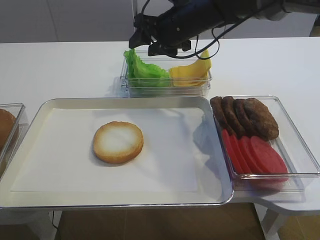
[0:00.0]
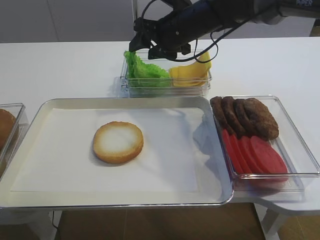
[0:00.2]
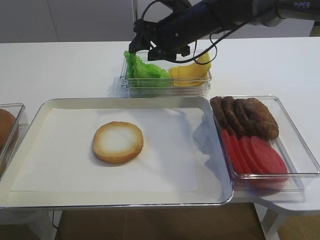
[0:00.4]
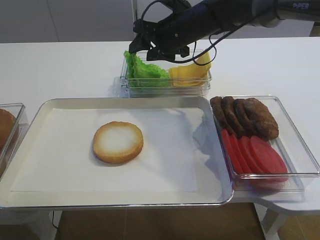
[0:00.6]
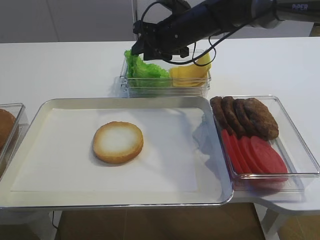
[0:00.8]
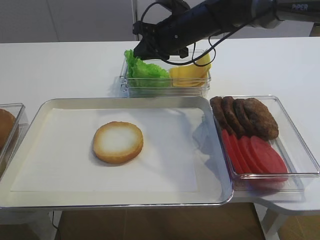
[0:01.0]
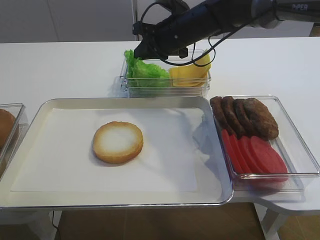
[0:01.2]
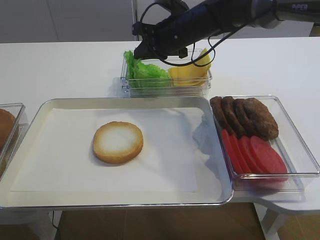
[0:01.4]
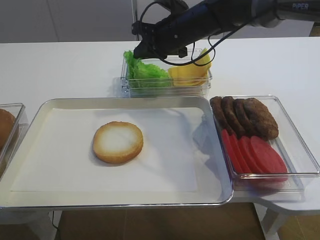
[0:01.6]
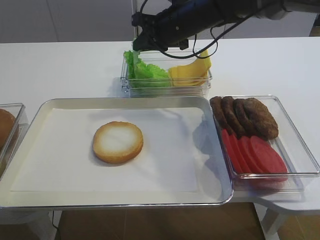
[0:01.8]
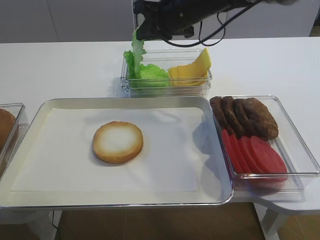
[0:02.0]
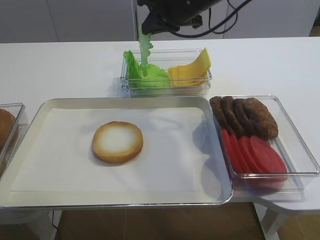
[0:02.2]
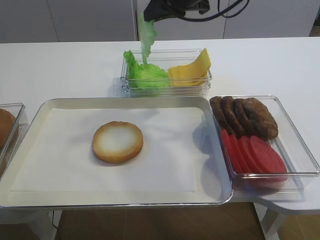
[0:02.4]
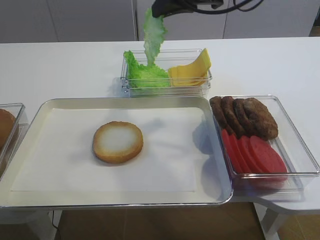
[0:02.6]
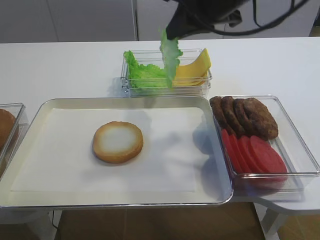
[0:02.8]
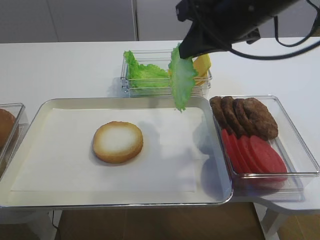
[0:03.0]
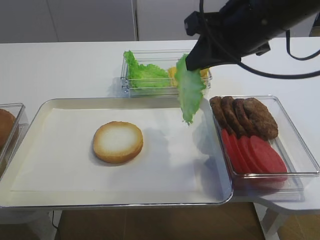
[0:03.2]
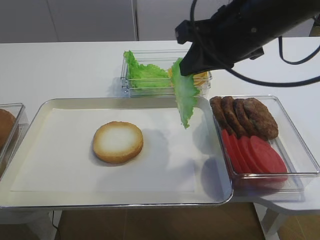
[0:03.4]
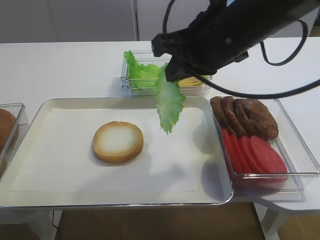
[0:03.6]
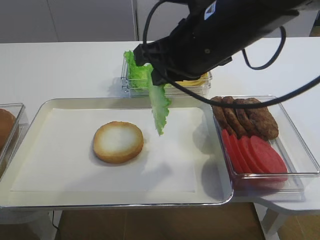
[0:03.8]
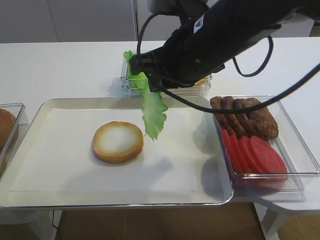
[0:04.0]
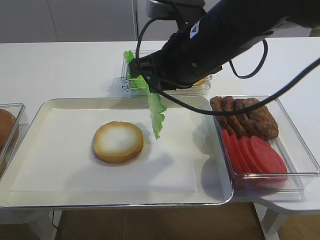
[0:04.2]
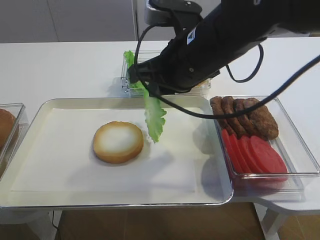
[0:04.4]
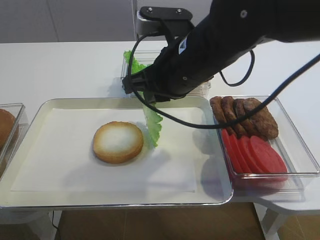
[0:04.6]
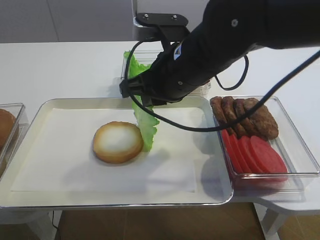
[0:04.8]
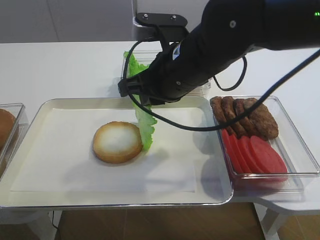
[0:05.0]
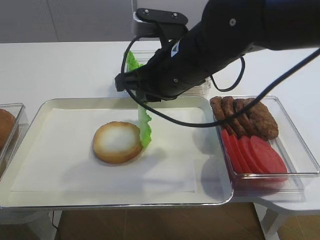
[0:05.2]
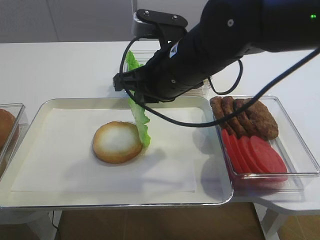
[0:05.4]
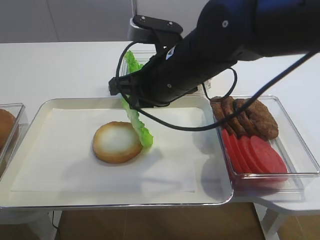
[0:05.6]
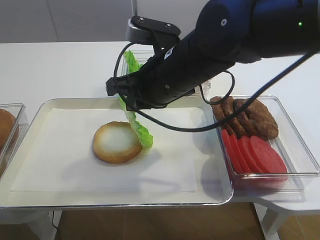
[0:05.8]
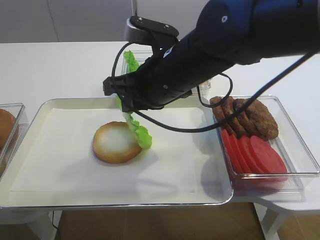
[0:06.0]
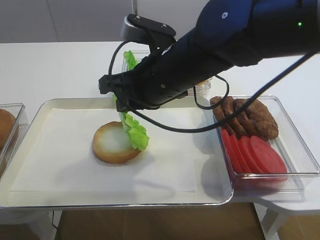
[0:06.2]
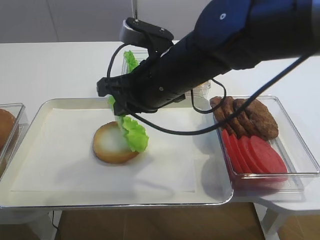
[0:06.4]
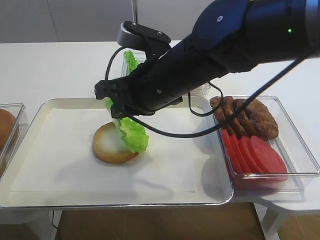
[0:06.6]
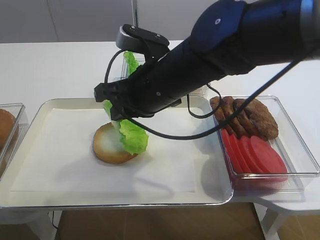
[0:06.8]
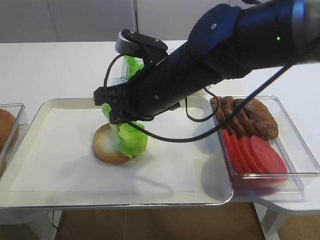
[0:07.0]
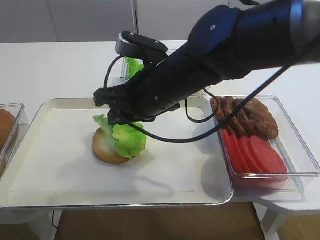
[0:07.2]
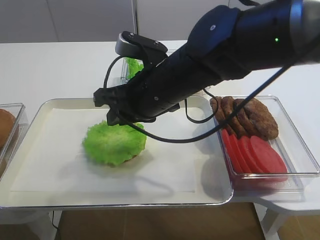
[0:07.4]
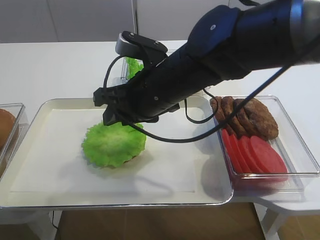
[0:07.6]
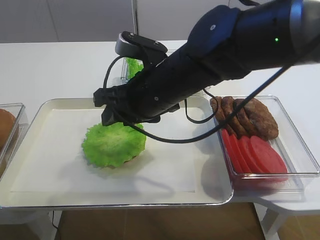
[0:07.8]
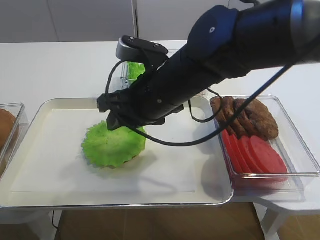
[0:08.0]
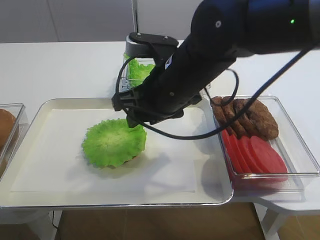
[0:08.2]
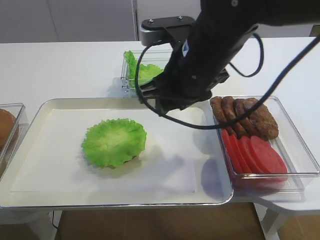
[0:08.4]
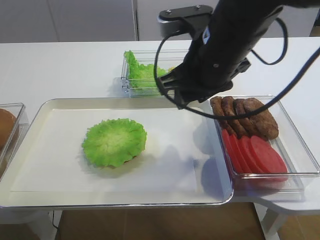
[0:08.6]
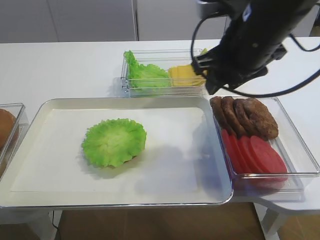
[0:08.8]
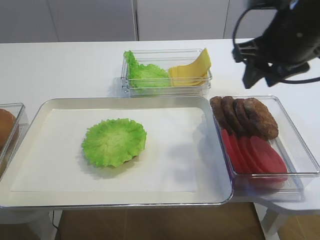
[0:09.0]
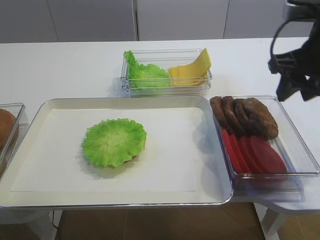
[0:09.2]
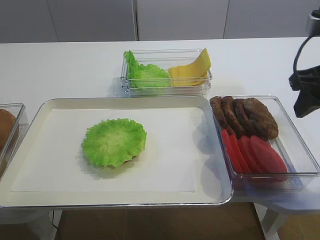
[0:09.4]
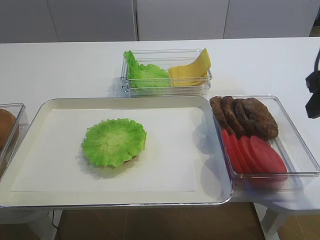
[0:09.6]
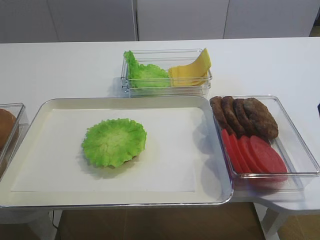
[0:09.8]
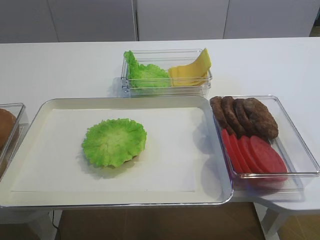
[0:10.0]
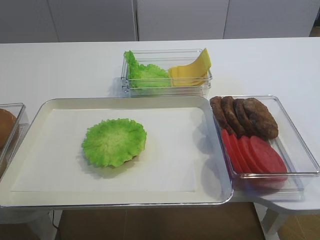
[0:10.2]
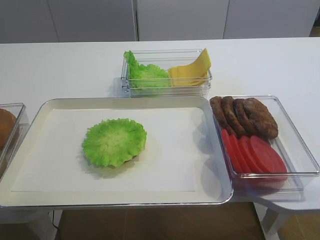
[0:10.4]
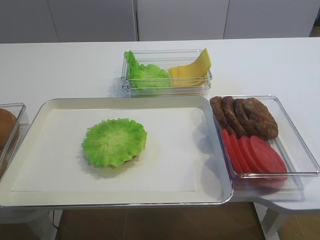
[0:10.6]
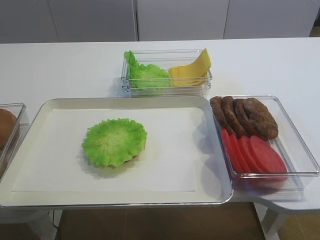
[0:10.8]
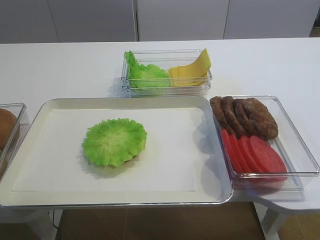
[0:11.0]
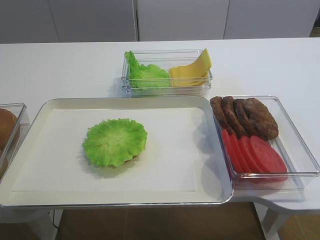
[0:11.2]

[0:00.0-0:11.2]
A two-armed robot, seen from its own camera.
Step, 0:00.0 to 0:02.2: Pick up the lettuce leaf with the right gripper.
Step, 0:02.4 to 0:08.2: Place the lettuce leaf on the bread slice with the right gripper.
0:00.0 to 0:01.6: The right gripper closes.
0:01.6 to 0:03.2: The right gripper moves backward, upward and to the right, about 20 cm.
0:03.2 to 0:04.8: The right gripper is displaced to the left and downward by approximately 10 cm.
0:04.8 to 0:06.4: The grippers stay close to where they were, moving slightly.
0:06.4 to 0:08.0: The right gripper opens.
0:08.0 to 0:09.6: The right gripper is displaced to the right by about 25 cm.
0:09.6 to 0:11.2: The right gripper shifts about 25 cm backward.

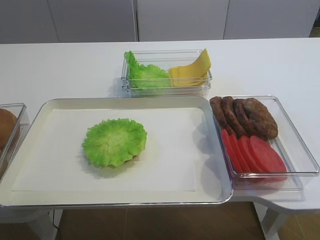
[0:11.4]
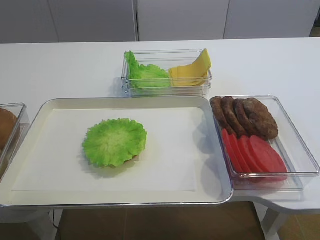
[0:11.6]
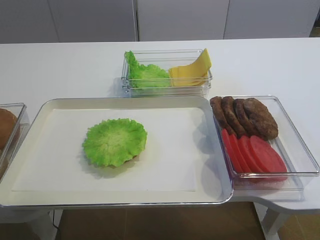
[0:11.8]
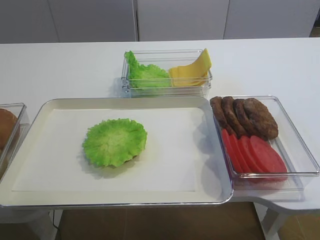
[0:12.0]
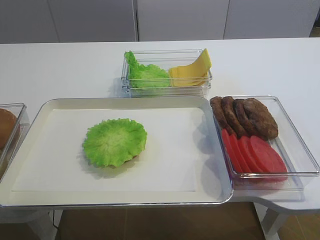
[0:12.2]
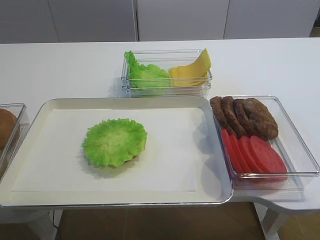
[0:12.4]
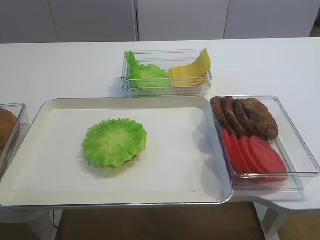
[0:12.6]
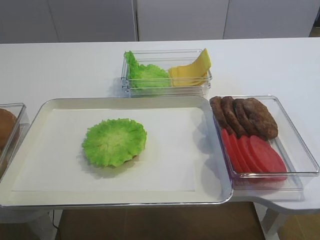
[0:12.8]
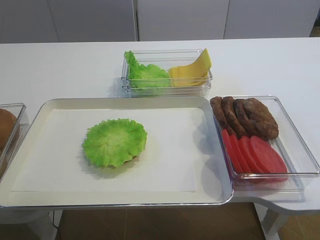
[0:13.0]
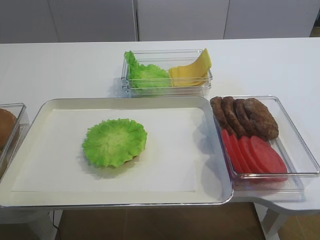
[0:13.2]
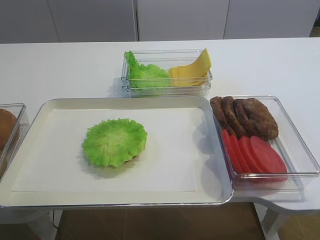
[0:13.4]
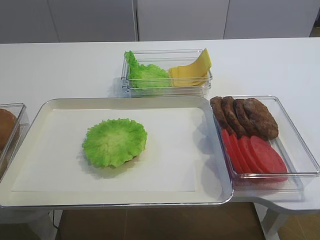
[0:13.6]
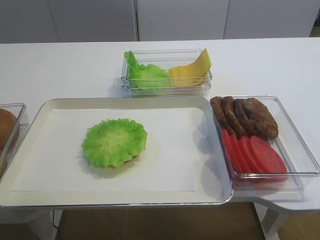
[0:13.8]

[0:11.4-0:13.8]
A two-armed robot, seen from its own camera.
0:12.6 to 0:13.8: The two grippers keep their place.

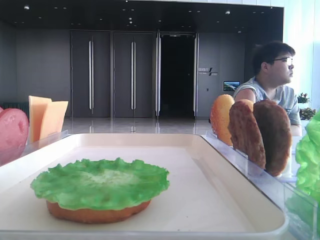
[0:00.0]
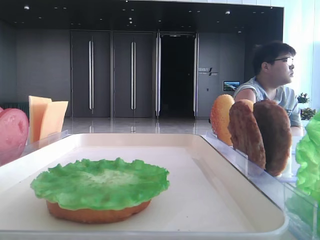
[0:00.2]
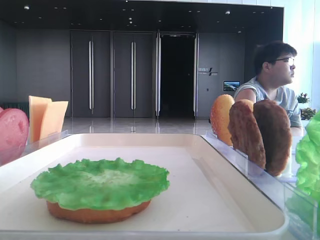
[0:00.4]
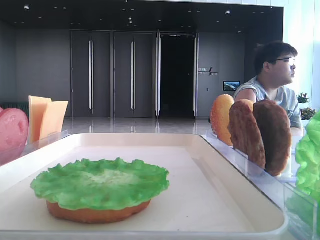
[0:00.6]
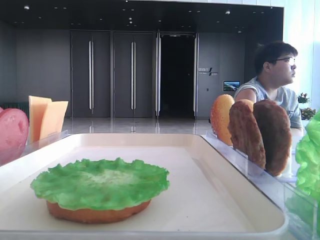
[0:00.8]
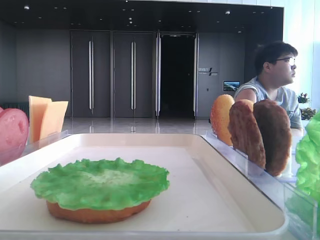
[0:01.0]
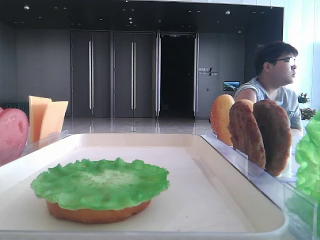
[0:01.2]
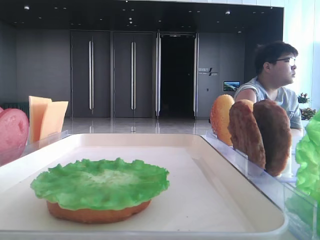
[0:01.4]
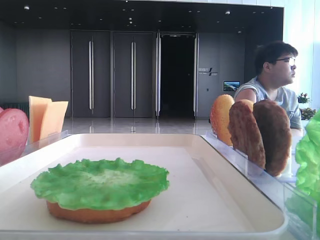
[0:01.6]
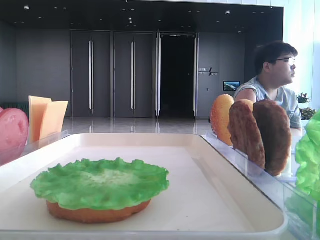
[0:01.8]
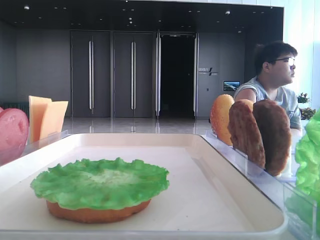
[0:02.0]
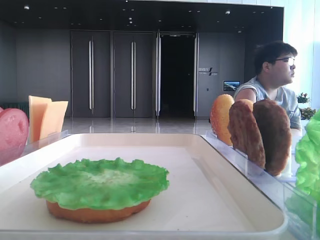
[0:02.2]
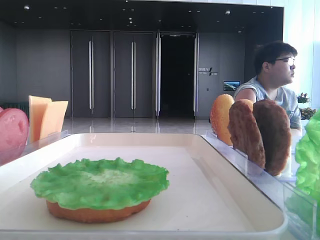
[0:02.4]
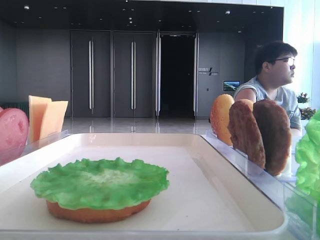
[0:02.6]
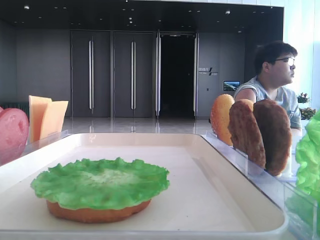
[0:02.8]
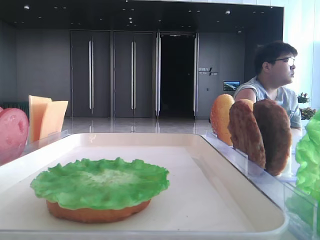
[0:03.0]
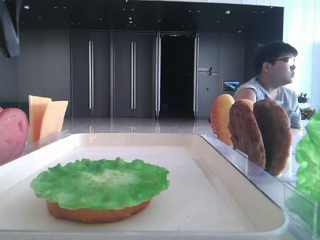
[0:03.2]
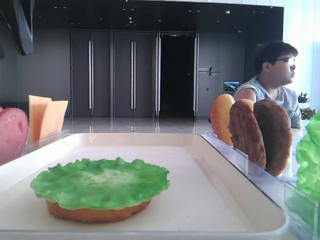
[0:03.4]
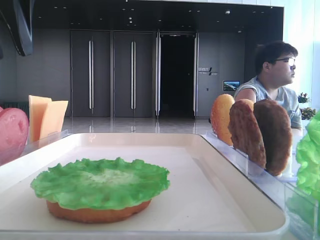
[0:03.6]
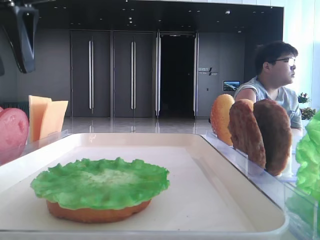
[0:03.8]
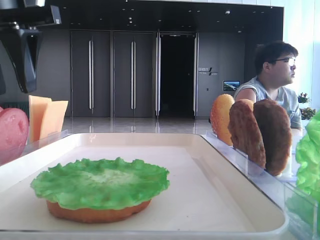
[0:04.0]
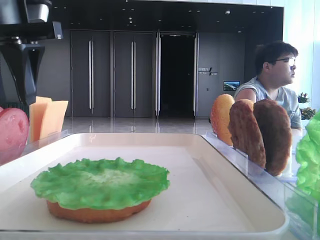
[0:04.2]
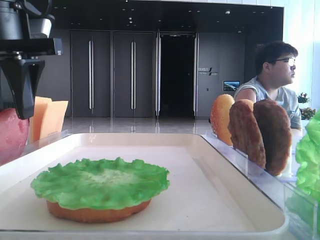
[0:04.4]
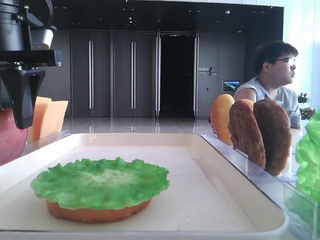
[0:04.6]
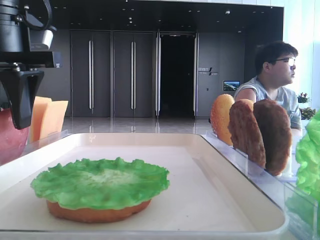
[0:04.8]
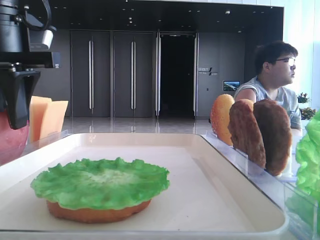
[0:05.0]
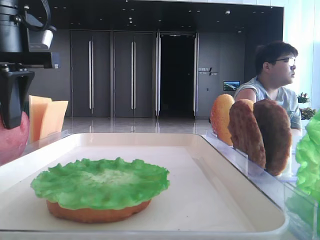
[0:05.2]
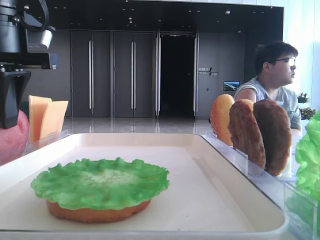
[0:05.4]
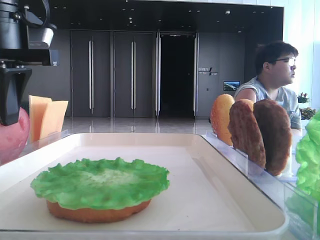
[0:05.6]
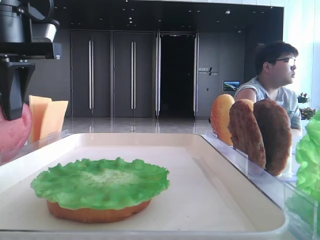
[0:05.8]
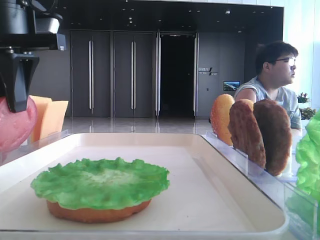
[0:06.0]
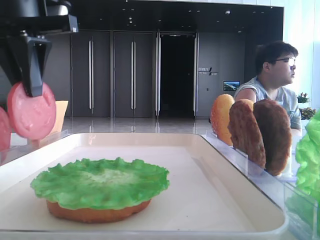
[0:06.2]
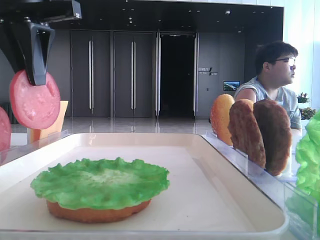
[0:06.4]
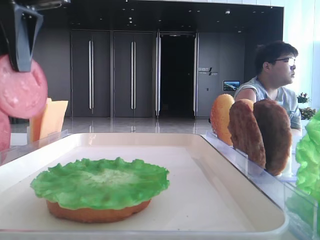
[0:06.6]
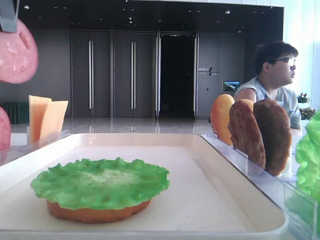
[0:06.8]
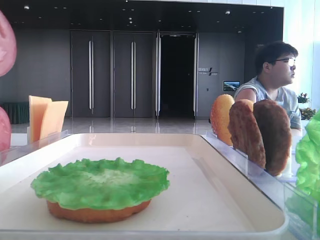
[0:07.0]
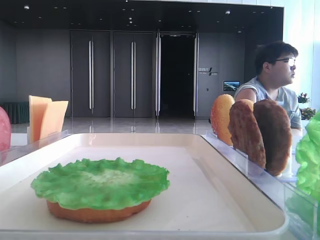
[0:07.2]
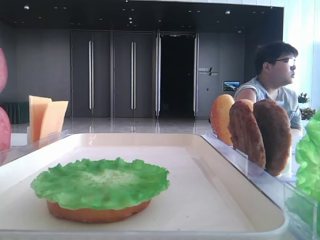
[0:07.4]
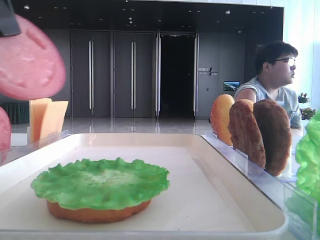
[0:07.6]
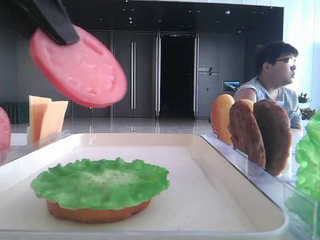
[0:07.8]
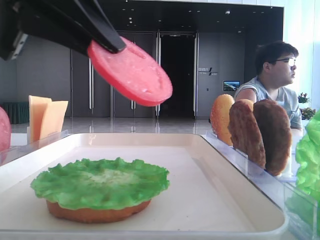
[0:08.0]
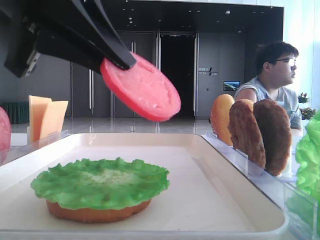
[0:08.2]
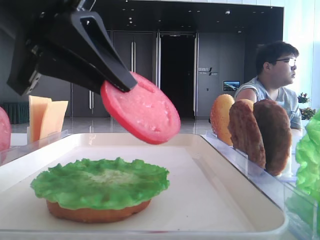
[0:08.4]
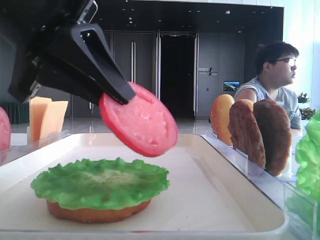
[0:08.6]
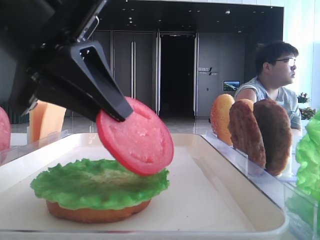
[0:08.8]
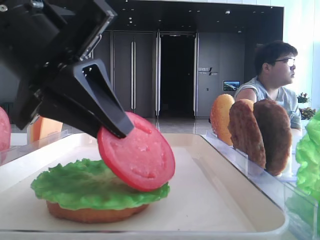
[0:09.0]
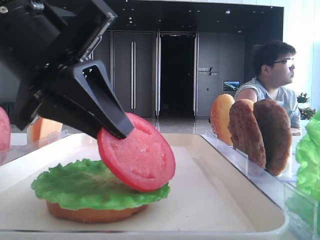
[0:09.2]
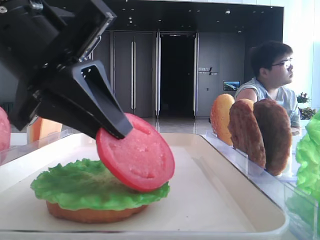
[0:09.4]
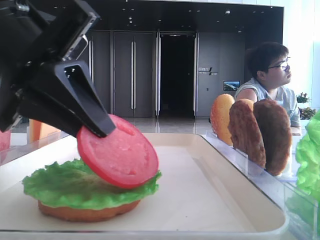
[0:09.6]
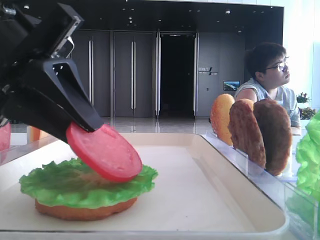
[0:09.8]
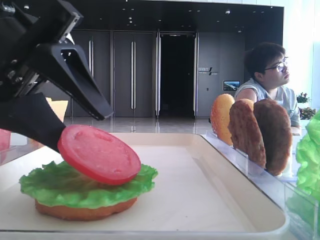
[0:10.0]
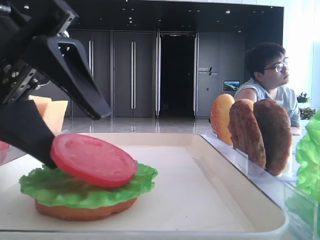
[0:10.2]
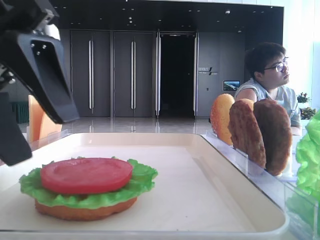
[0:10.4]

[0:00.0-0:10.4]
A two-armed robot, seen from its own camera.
Step, 0:00.0 to 0:05.2: Pick up the tomato slice with the left hand.
Step, 0:05.6 to 0:10.2: Place the tomato slice on the lettuce leaf with the left hand.
0:03.0 to 0:04.4: The left gripper goes roughly 10 cm to the right and downward.
0:04.4 to 0:06.0: The left gripper closes.
0:06.0 to 0:07.4: The left gripper is displaced backward and upward by about 15 cm.
0:07.4 to 0:09.0: The left gripper goes approximately 15 cm downward and to the right.
0:09.0 to 0:10.4: The left gripper opens its fingers.
